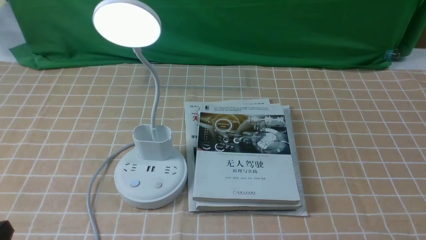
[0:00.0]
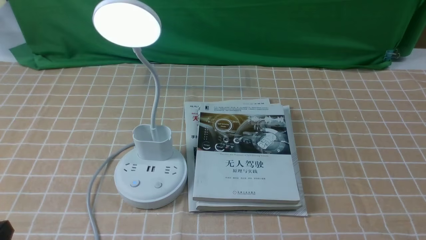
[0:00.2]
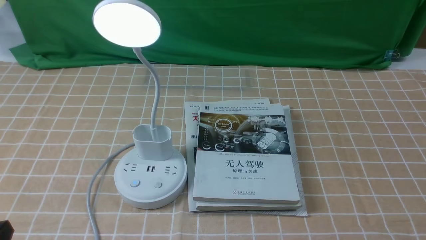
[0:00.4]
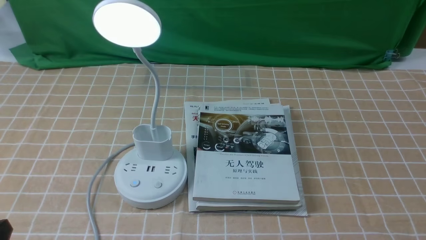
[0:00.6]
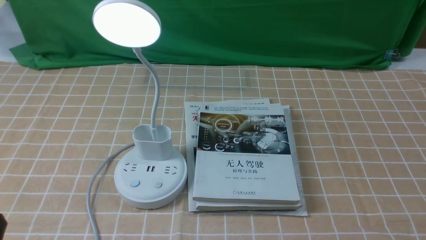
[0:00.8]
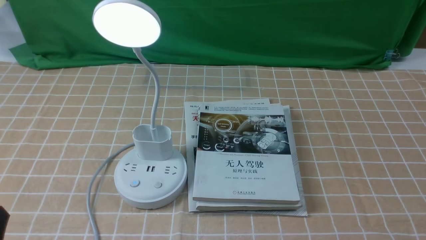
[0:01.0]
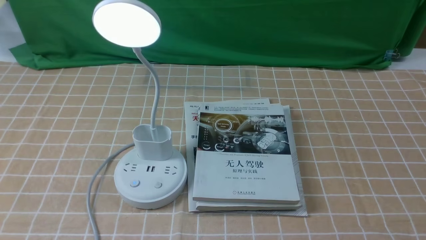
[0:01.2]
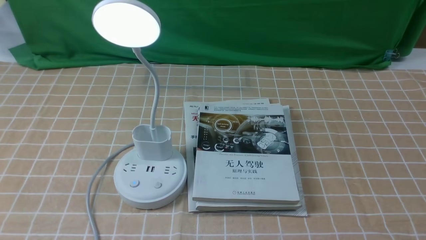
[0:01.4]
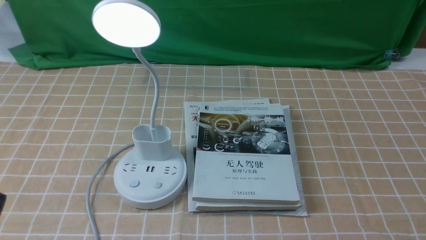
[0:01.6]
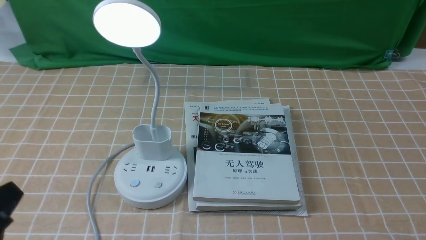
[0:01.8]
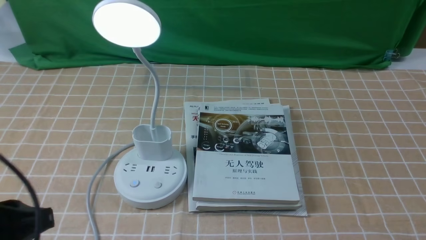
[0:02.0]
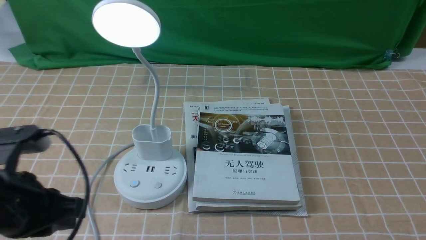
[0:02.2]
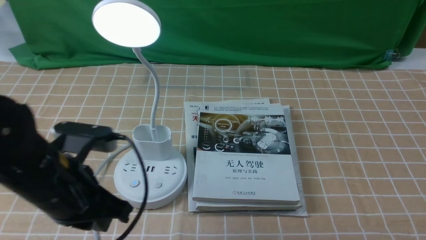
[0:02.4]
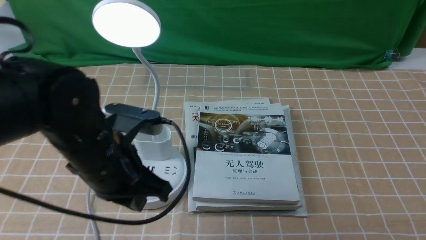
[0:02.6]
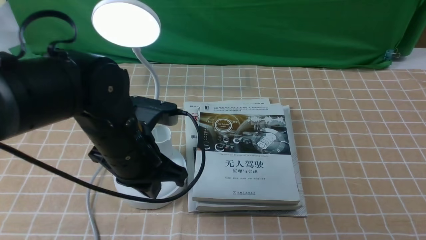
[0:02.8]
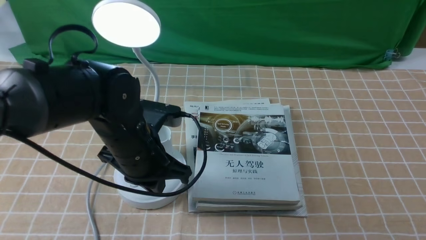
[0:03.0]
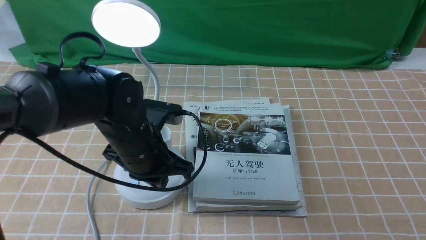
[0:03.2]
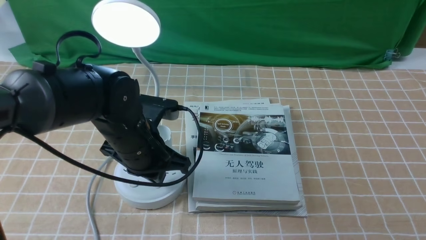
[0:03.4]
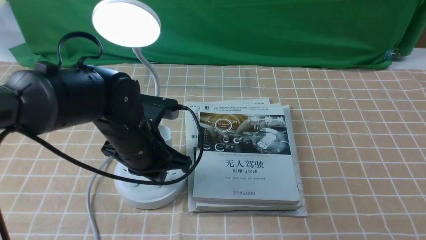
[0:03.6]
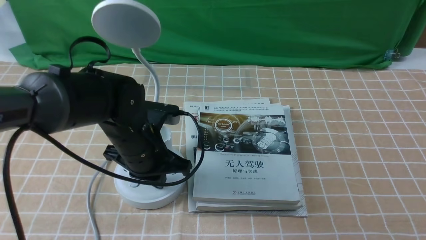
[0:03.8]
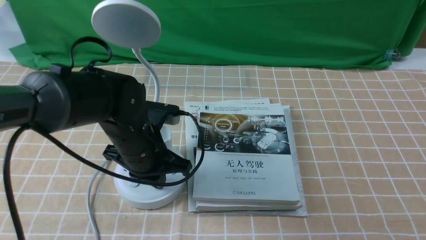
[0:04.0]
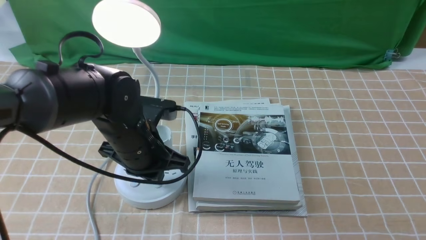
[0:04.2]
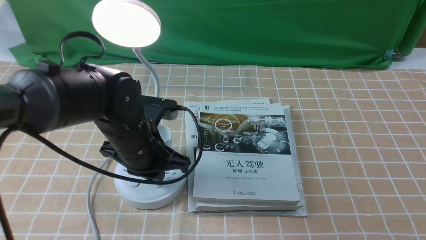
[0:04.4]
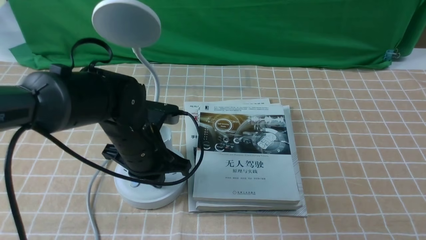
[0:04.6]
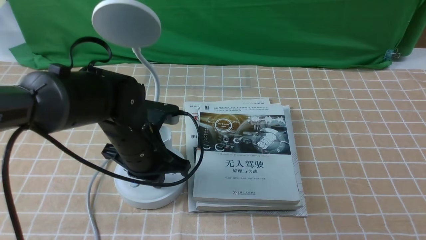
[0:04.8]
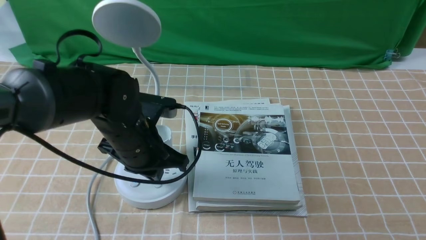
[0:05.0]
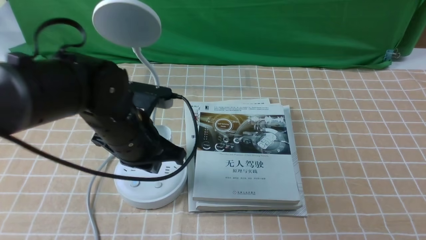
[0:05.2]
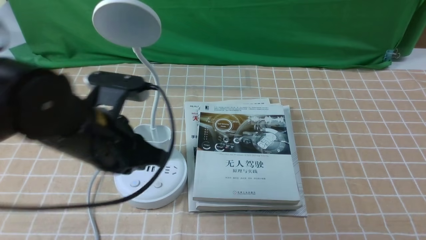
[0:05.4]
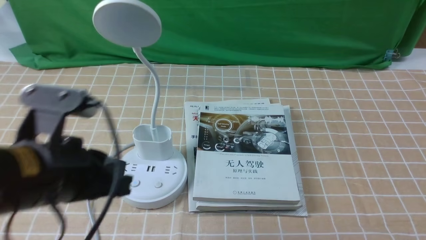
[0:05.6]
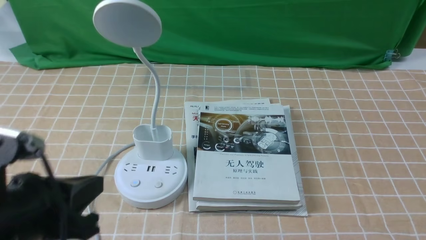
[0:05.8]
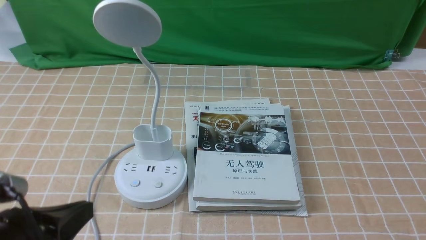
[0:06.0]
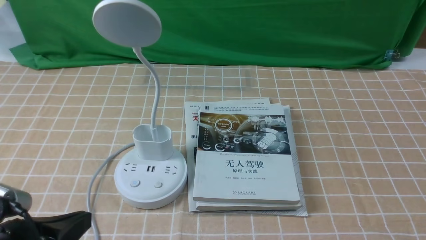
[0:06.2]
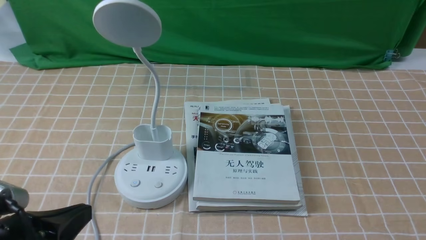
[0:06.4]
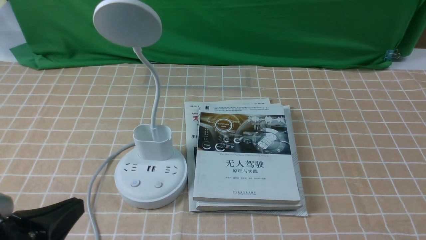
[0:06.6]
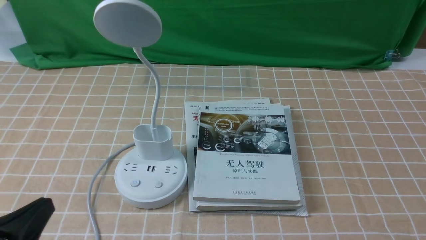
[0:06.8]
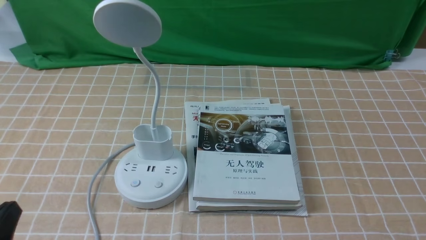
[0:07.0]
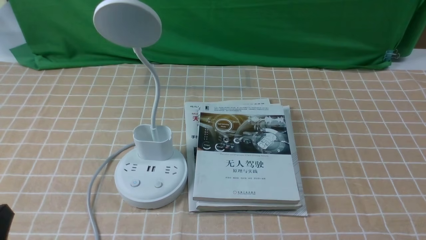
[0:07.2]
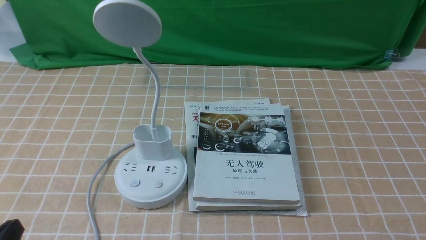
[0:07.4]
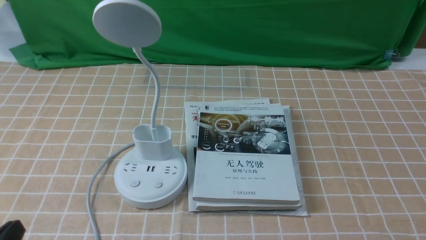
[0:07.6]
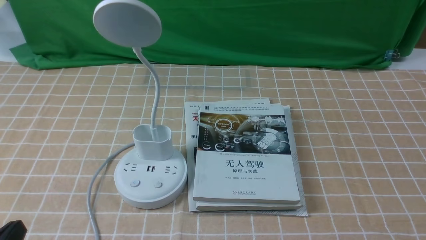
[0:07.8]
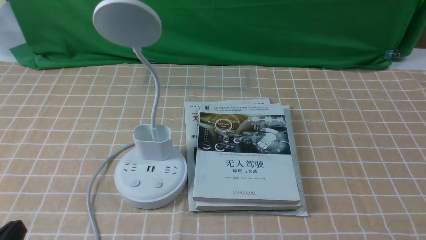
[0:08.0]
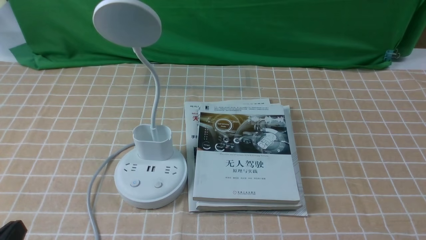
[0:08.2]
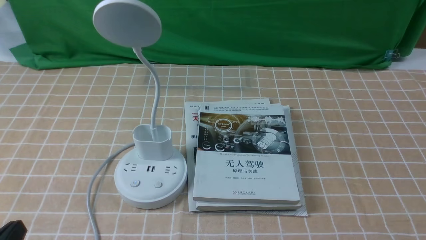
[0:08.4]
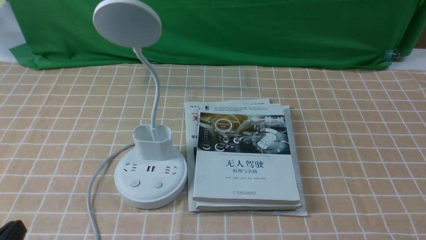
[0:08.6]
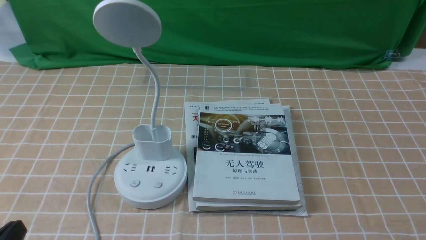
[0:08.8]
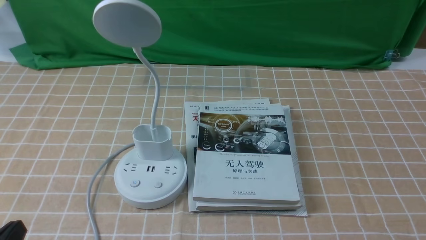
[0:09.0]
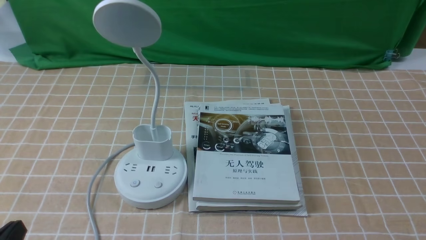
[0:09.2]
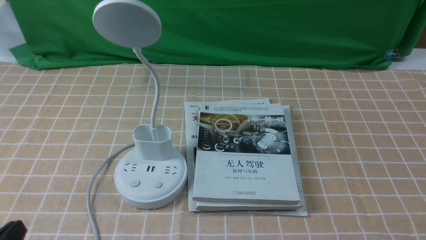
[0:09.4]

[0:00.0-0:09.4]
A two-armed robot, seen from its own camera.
Task of the whole recording: turn off the desk lamp on the light coffee tablecloth by hand.
Step, 0:00.0 to 0:05.0: use the left arm to press the button switch on the lamp holder.
0:01.6 to 0:03.2: The left gripper is displaced forward and to the right by about 30 cm.
0:03.2 to 0:04.8: There are only small adjustments of the grippers.
0:04.8 to 0:06.2: The left gripper goes some 25 cm backward and to the left.
0:06.2 to 0:07.8: The left gripper shifts approximately 5 cm downward, and opens.
0:07.8 to 0:09.4: Both grippers stay put.

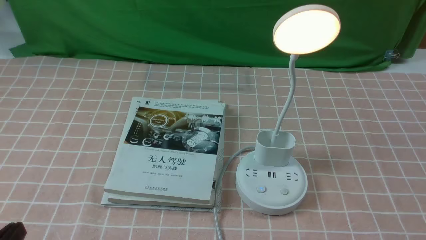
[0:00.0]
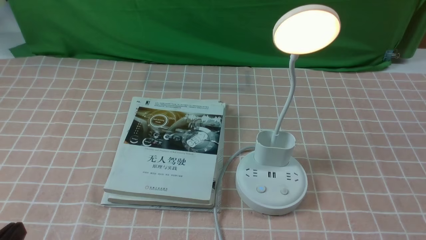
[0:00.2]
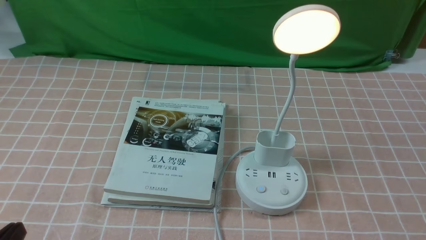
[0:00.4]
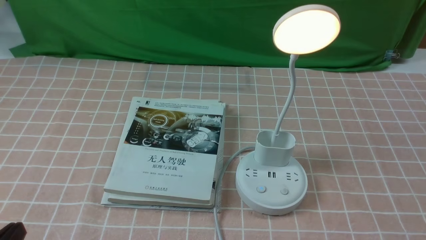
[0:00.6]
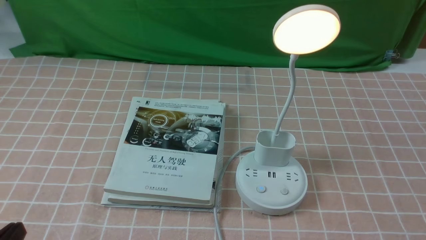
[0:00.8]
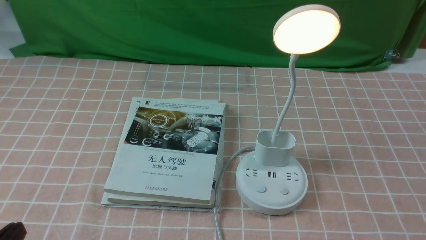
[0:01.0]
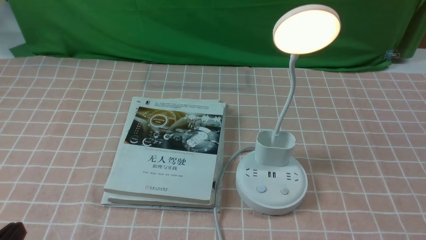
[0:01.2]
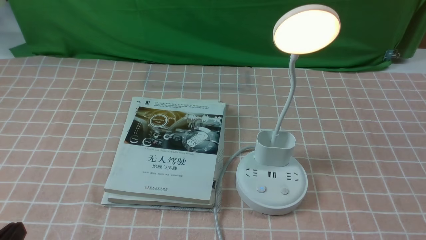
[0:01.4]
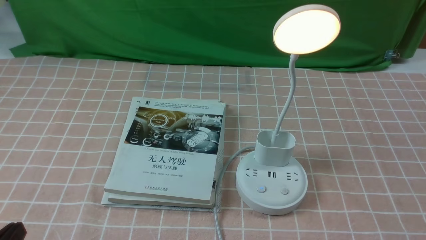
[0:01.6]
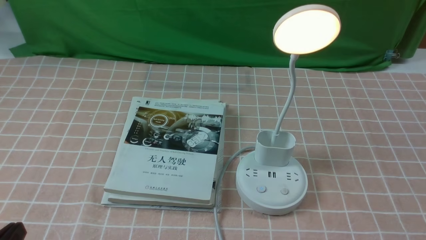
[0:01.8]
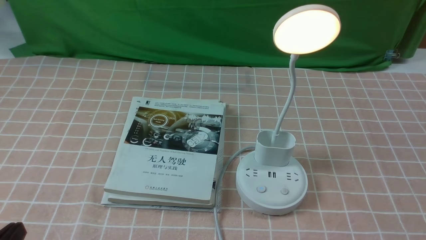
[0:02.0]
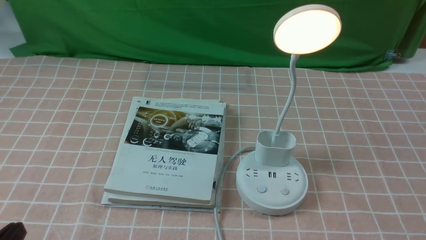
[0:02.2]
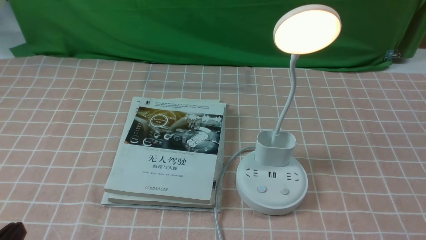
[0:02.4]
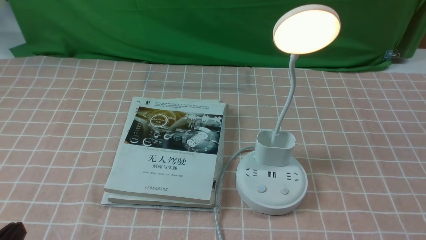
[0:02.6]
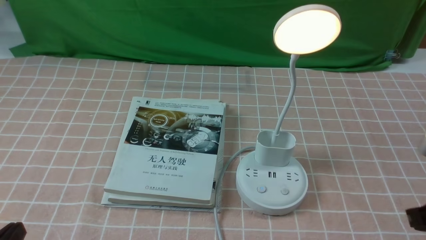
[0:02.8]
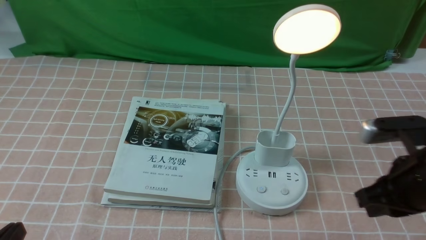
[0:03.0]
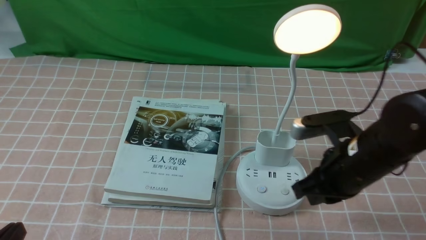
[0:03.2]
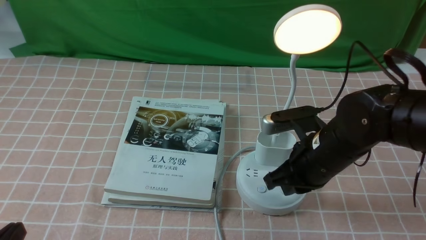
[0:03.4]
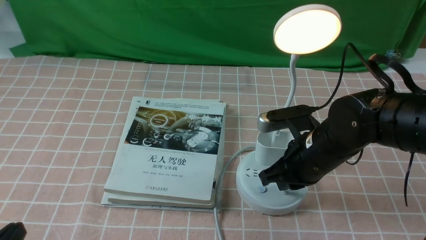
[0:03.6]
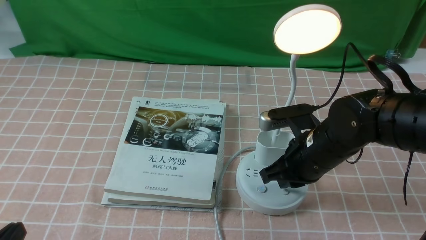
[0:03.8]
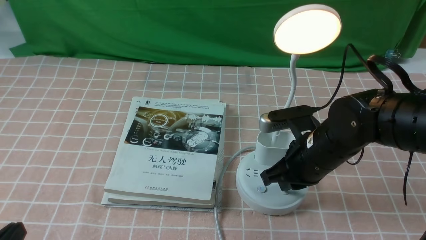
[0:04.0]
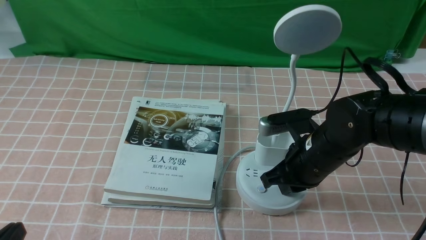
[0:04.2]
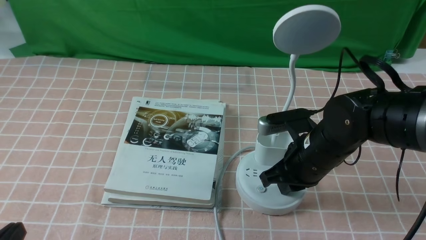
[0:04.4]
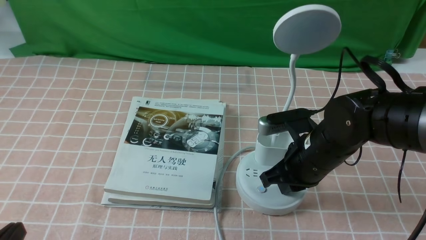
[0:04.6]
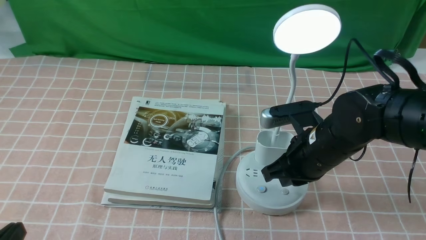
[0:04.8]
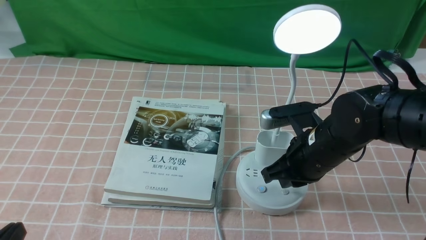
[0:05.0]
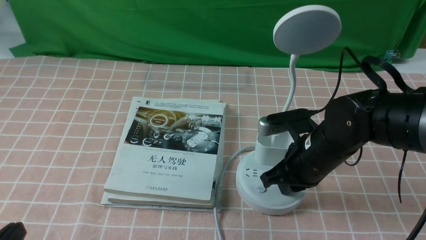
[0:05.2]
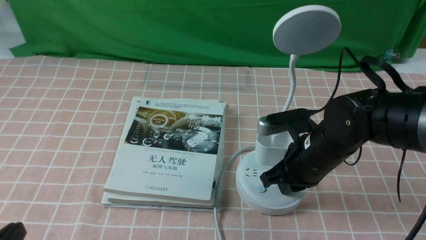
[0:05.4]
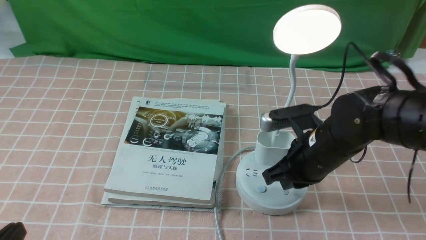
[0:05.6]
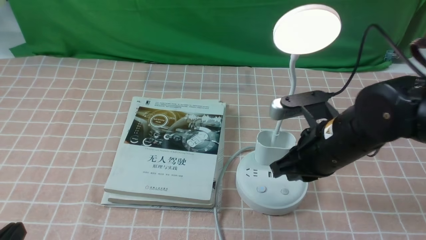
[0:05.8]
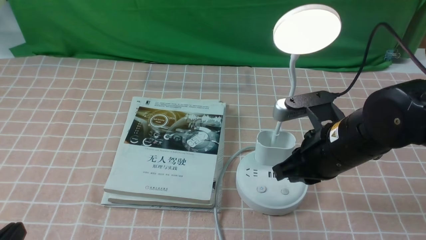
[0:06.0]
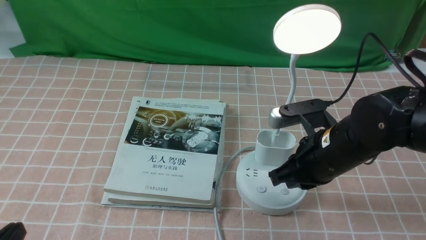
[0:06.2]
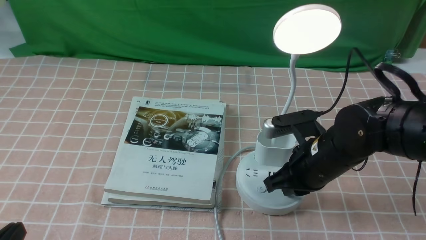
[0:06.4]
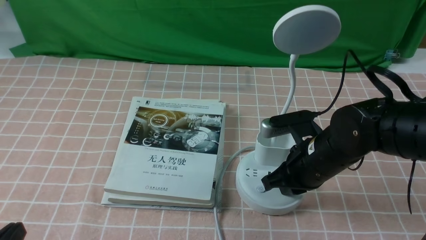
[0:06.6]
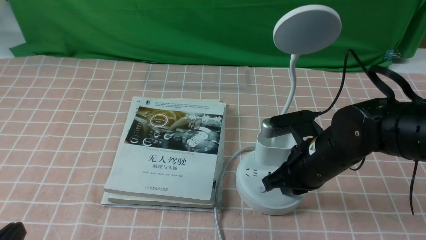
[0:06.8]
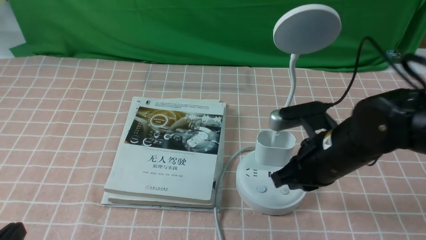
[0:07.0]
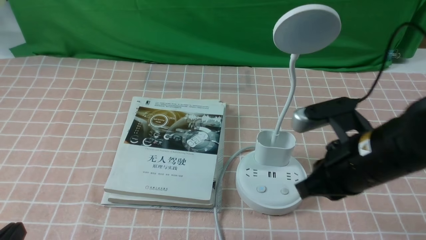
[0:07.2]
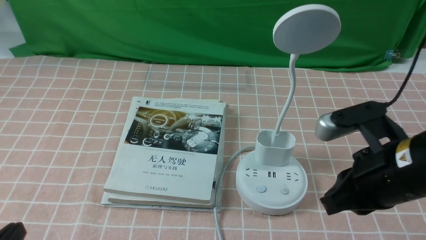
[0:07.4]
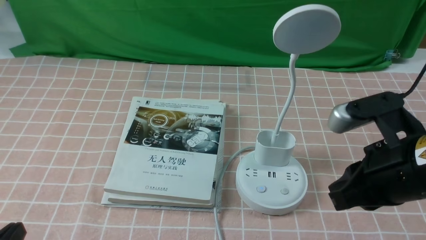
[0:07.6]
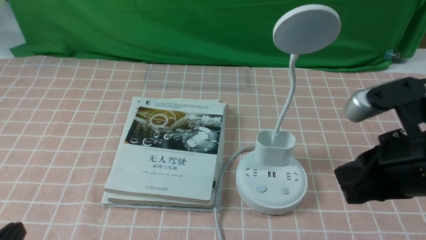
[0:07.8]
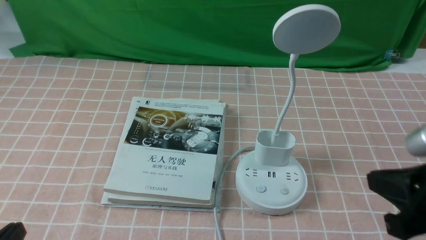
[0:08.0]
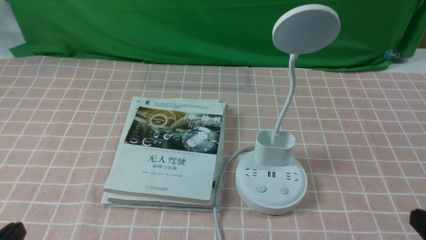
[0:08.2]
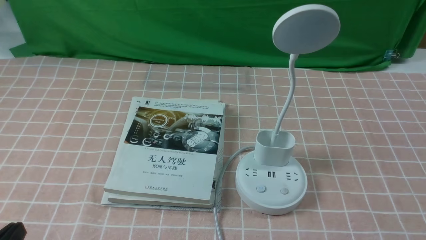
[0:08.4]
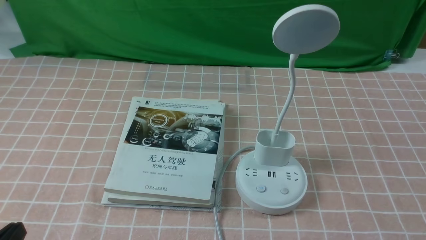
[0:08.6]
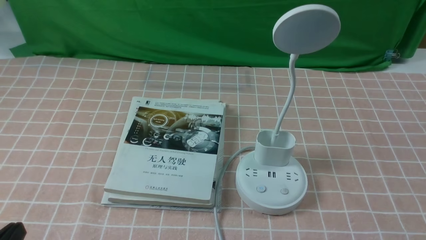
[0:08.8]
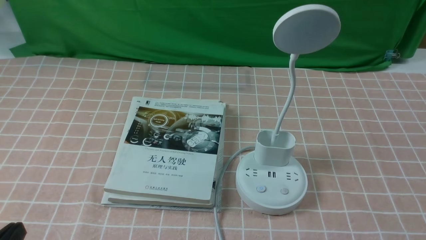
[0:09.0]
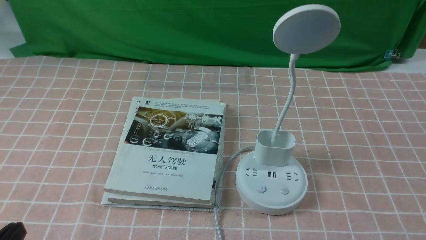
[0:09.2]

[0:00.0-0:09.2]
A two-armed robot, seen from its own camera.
Task of the whole recording: turn off the table lamp on the pink coffee tablecloth by hand.
Step, 0:00.0 to 0:06.8: use the right arm to press the button switch on the lamp holder.
0:00.0 to 0:01.6: Both grippers stay about where they are.
0:01.6 to 0:03.0: The right gripper moves forward and to the left, some 20 cm, and closes its fingers.
0:03.0 to 0:04.6: The right gripper heads to the left, forward and downward, covering some 15 cm.
0:04.6 to 0:06.2: The grippers make only small movements.
0:06.2 to 0:07.6: The right gripper heads upward, backward and to the right, covering roughly 15 cm.
0:07.6 to 0:09.2: The right gripper moves backward, to the right and downward, approximately 20 cm.
